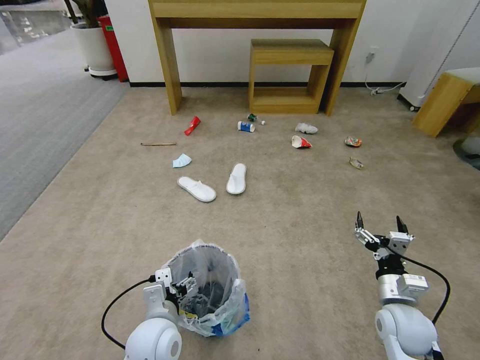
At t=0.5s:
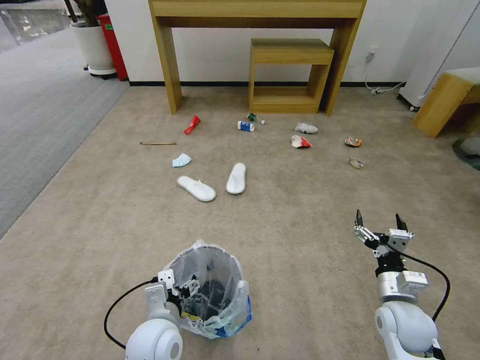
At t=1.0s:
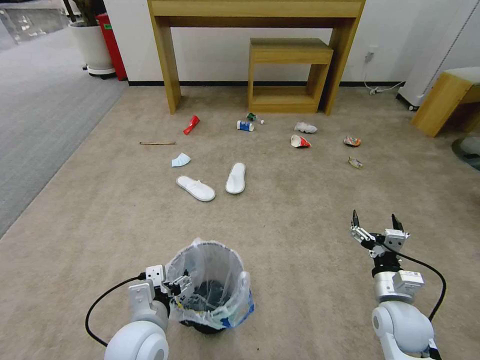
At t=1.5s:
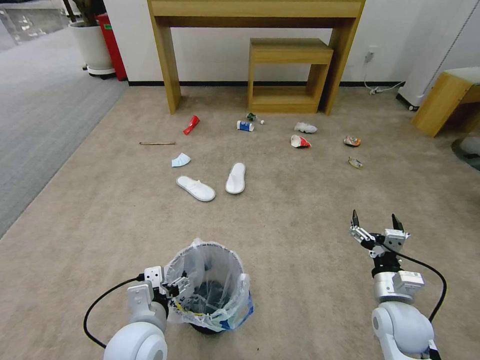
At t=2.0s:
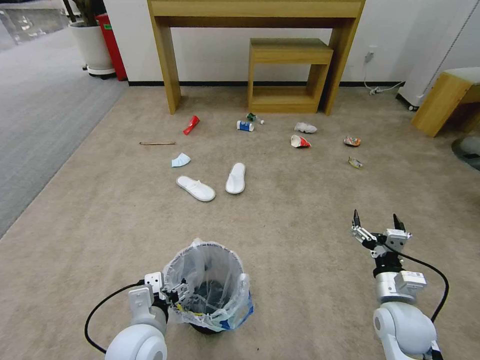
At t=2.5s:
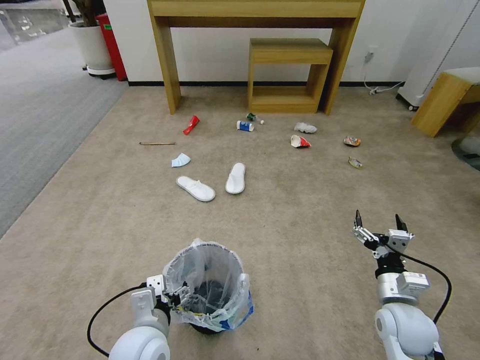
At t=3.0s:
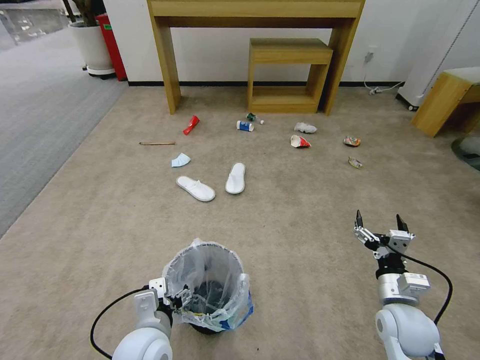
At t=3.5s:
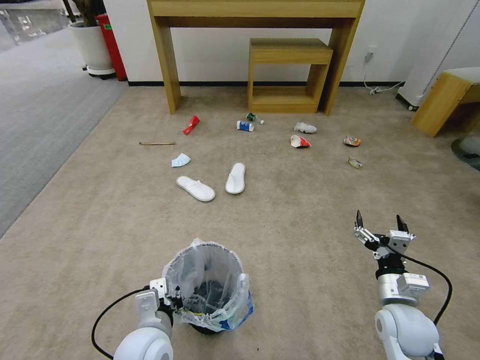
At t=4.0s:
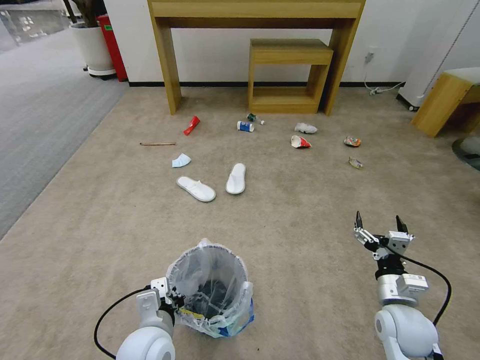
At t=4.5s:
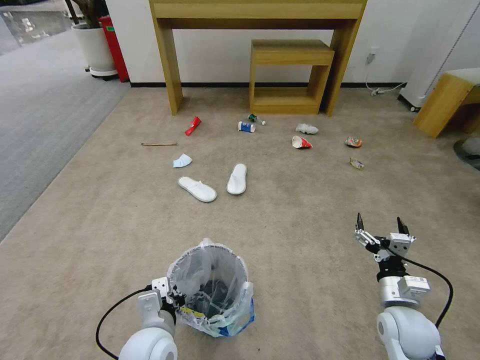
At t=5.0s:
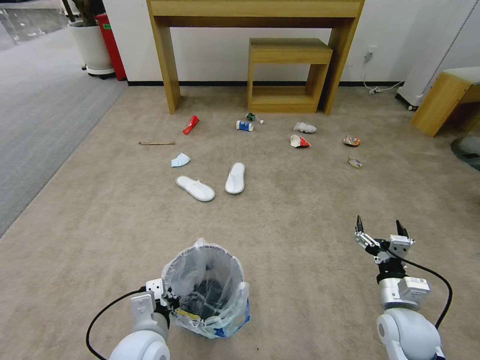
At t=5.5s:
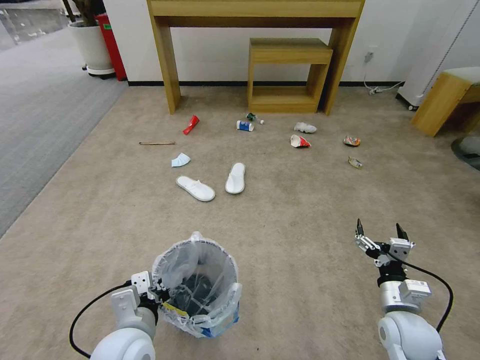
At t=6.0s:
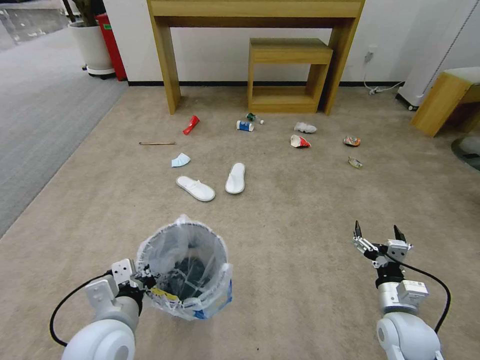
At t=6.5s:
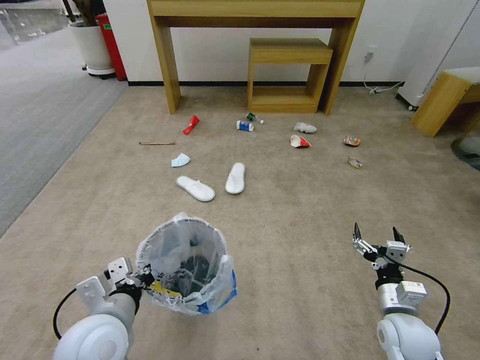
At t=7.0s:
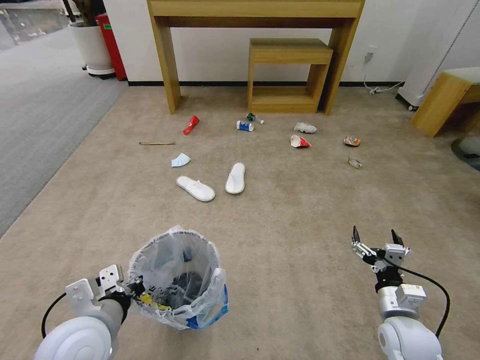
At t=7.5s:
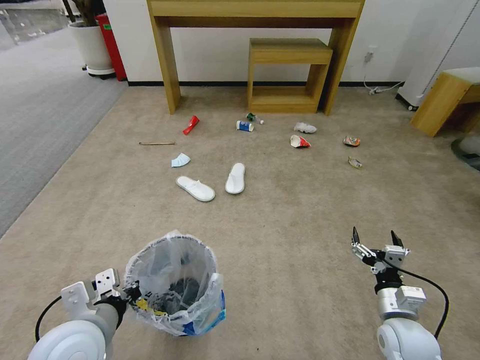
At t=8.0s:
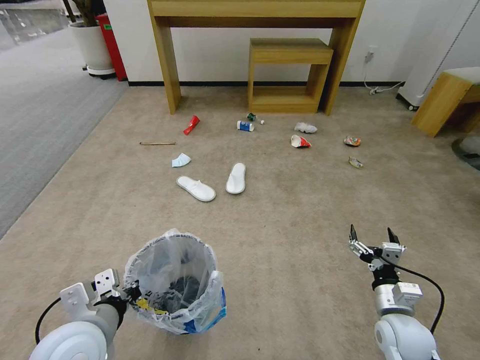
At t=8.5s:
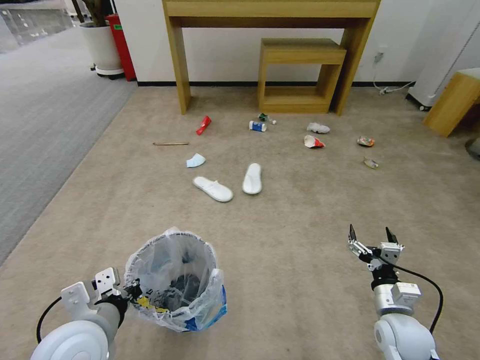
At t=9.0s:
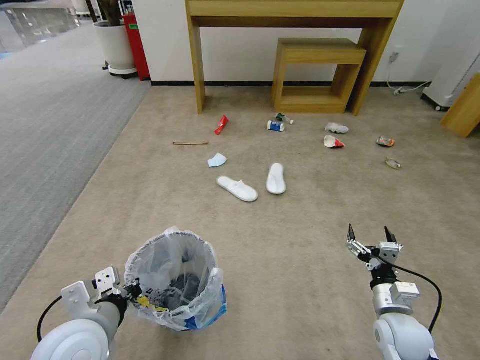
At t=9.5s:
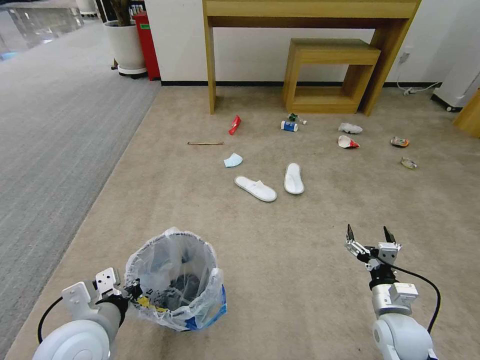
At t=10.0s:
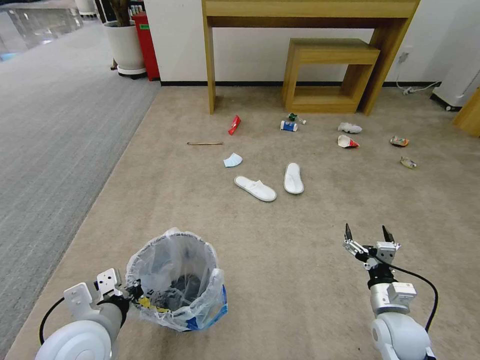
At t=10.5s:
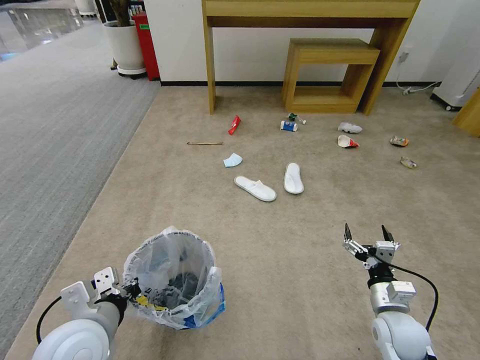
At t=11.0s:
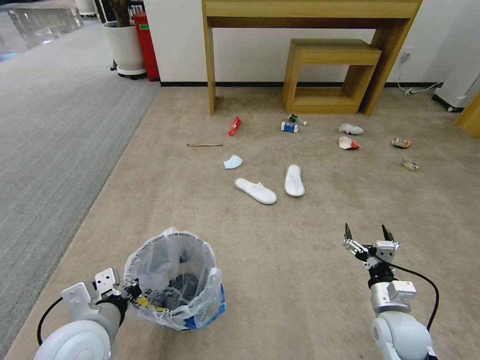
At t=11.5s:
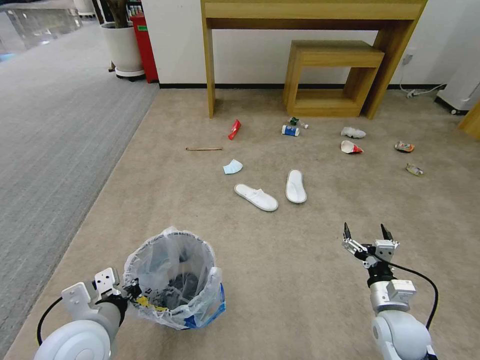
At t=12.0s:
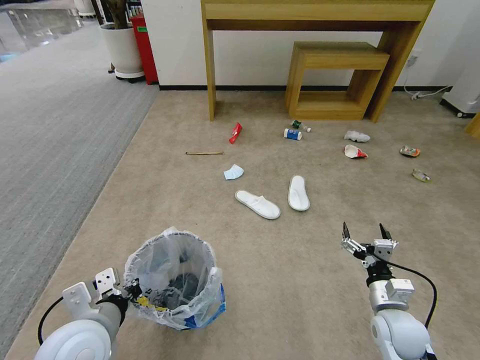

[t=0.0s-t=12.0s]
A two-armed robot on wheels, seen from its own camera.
Task of the whole recording: Pick up the trash bin and place the garbage on the floor into it.
t=2.0s to t=4.0s: The left gripper closes.
t=4.0s to t=6.0s: The left gripper travels upward by some 5 cm.
t=6.0s to t=8.0s: The left gripper changes place by approximately 5 cm.
t=10.0s to t=12.0s: Both grippers stay about where they are.

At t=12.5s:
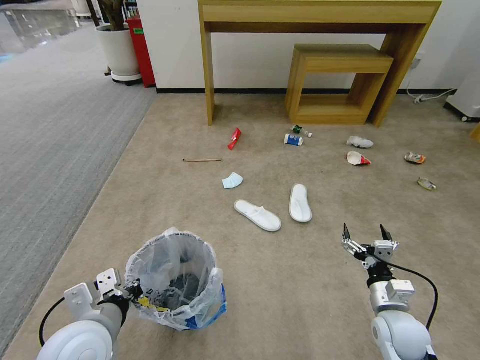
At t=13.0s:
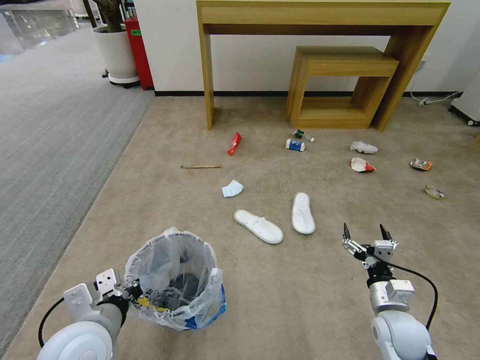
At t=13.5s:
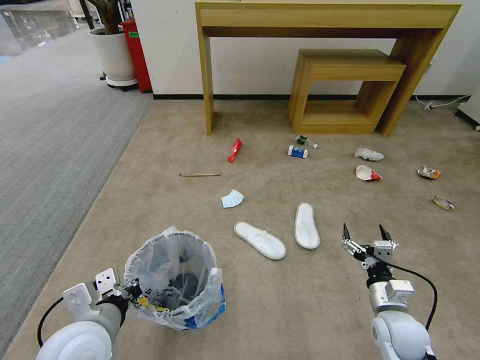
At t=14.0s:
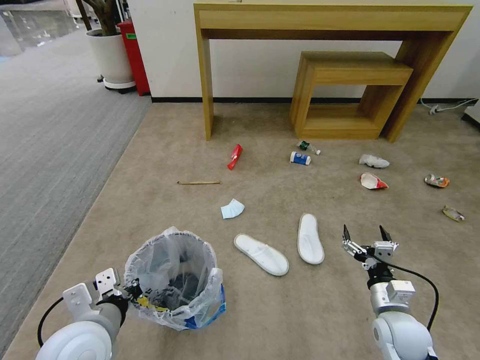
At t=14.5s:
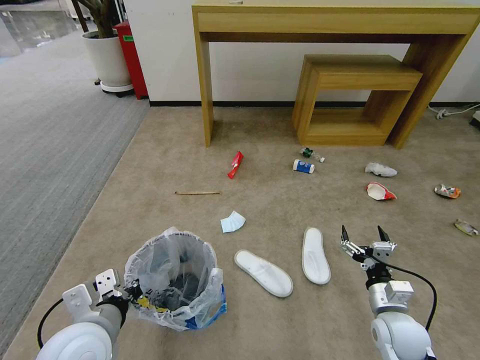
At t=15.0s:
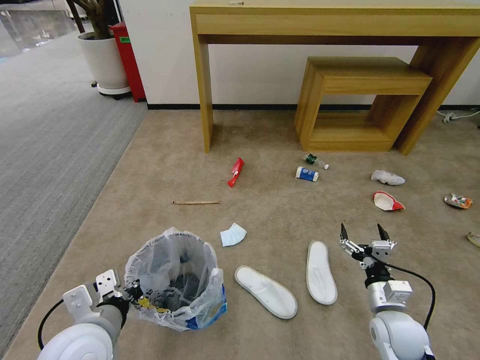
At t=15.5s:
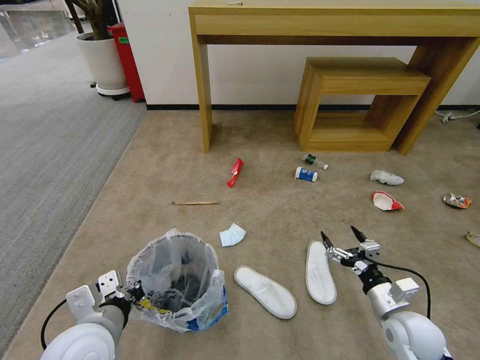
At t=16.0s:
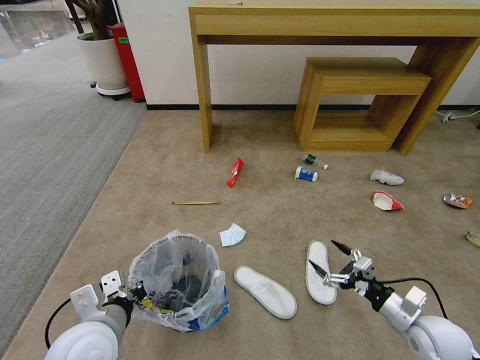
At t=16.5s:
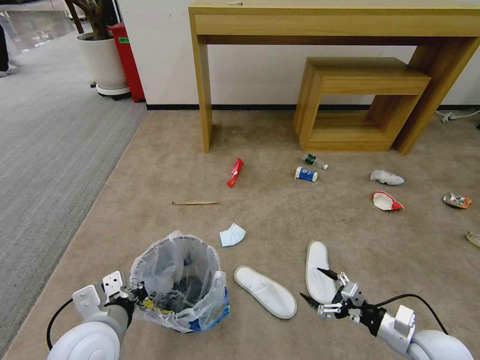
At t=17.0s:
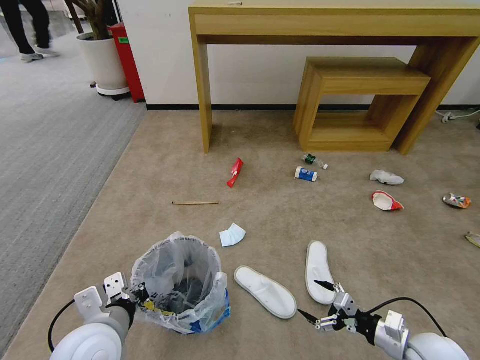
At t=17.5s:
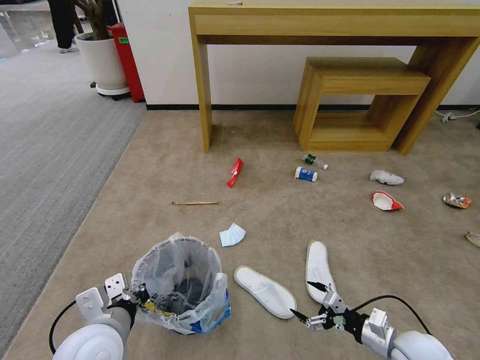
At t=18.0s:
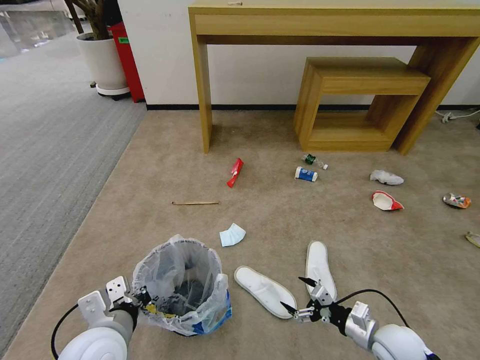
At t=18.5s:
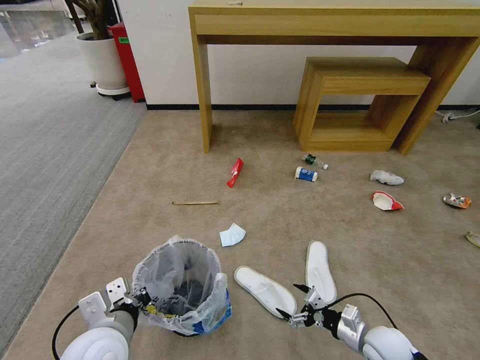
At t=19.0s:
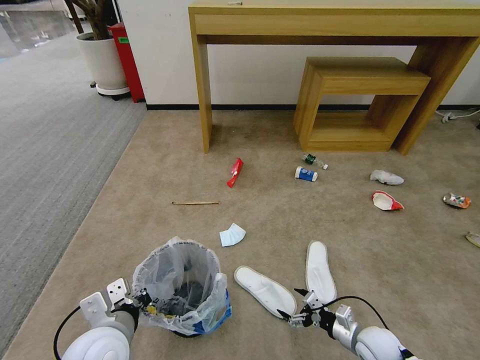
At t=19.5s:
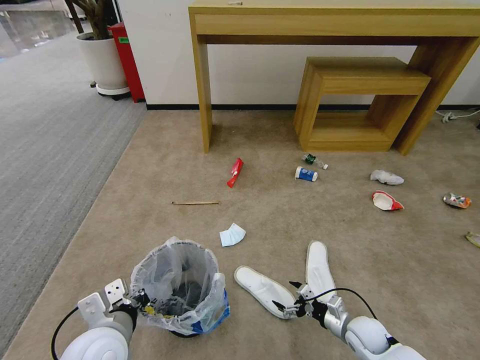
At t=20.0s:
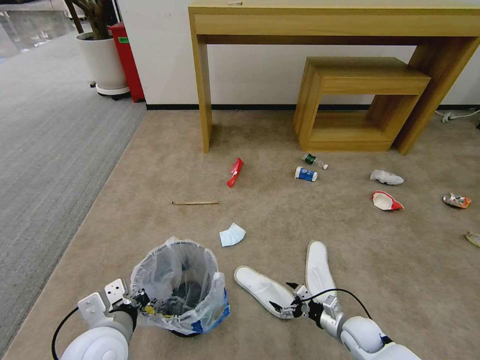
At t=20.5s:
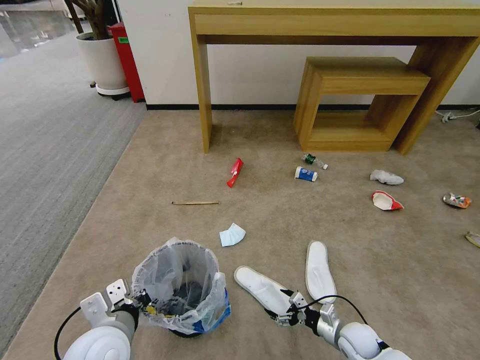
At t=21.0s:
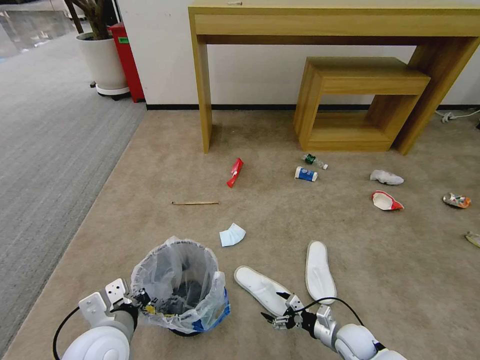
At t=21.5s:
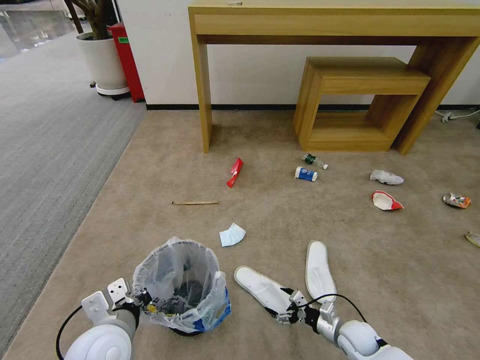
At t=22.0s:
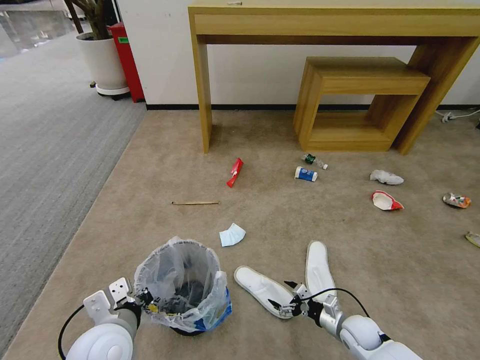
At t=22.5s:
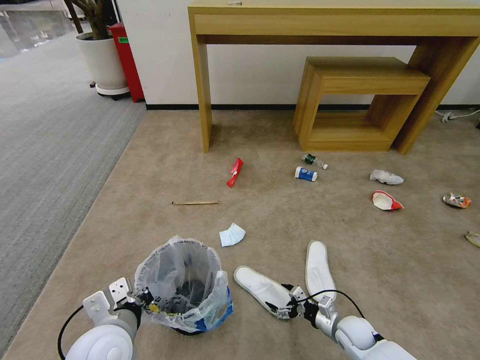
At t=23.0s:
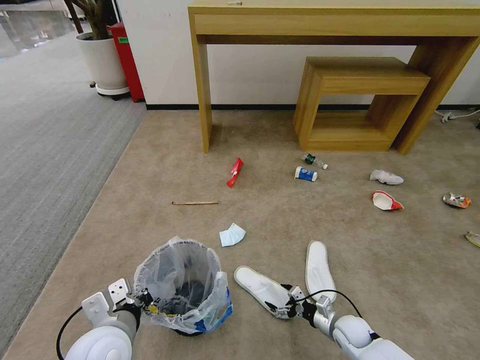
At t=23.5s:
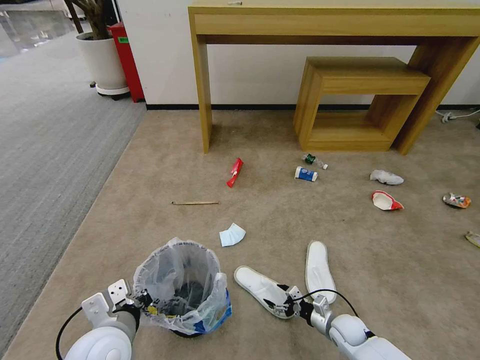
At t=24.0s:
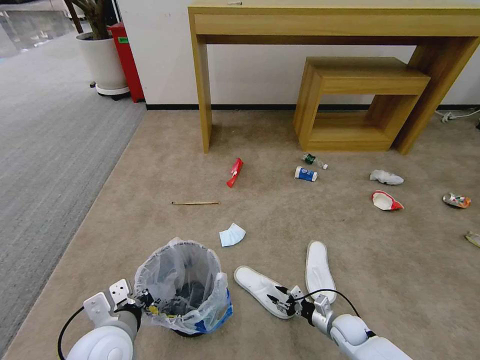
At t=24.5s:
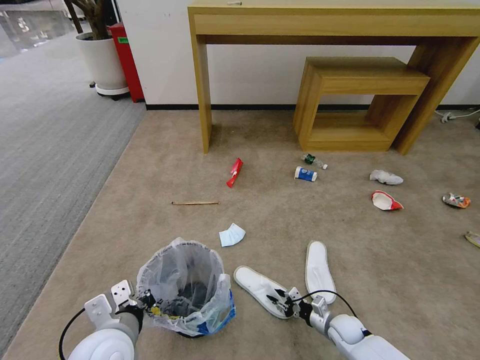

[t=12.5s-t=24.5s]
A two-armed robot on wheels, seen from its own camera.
Task of the whole recording: Pick up the trash bin and place the garbage on the floor into it.
t=14.5s to t=16.5s: The right gripper shifts about 5 cm to the right.
t=16.5s to t=18.5s: The right gripper shifts about 10 cm to the left and downward.
t=18.5s to t=20.5s: The right gripper is displaced downward by some 10 cm.
t=20.5s to t=22.5s: The grippers move only a little.
t=22.5s to t=24.5s: The right gripper closes.

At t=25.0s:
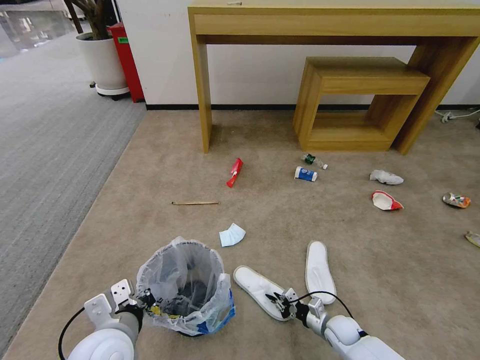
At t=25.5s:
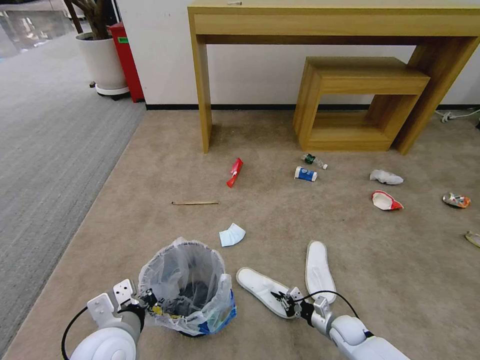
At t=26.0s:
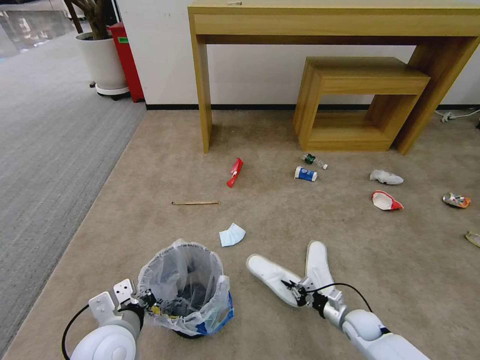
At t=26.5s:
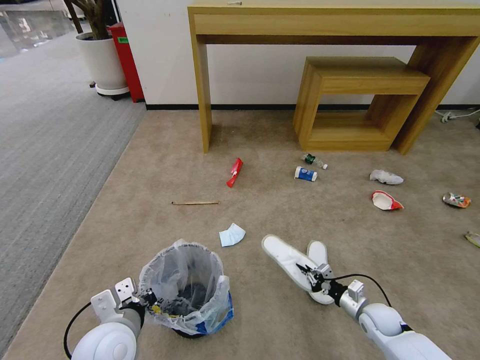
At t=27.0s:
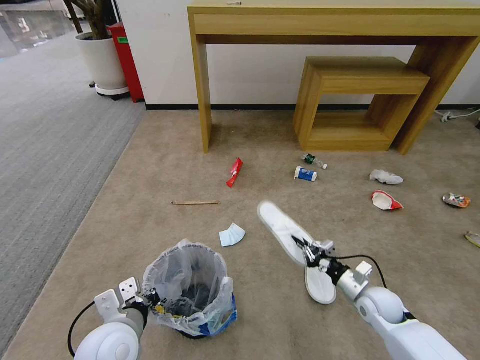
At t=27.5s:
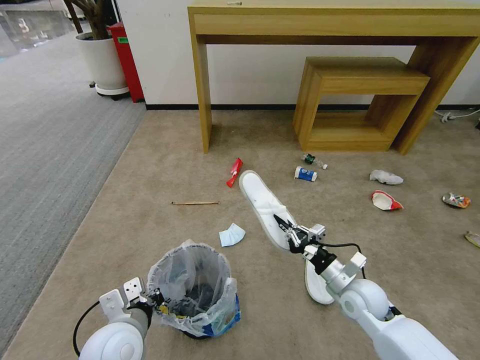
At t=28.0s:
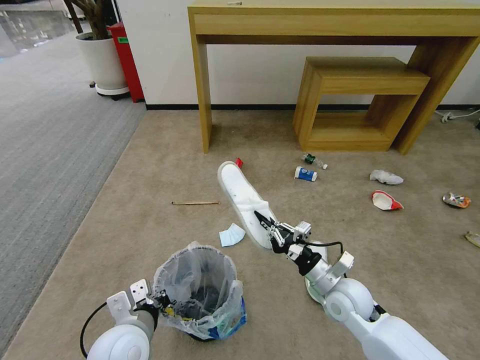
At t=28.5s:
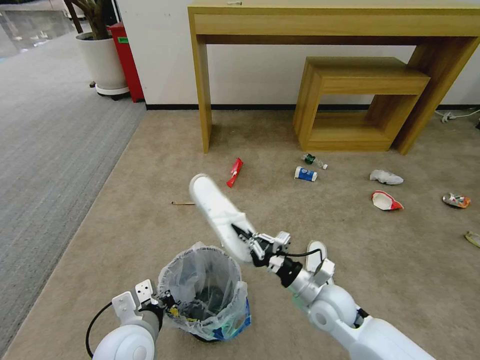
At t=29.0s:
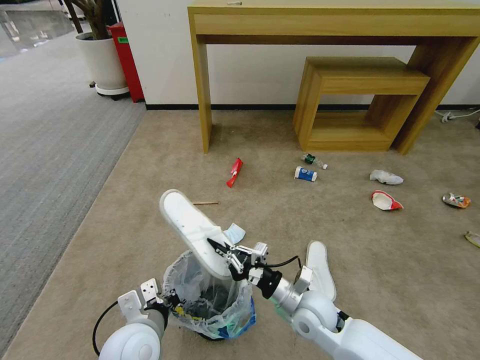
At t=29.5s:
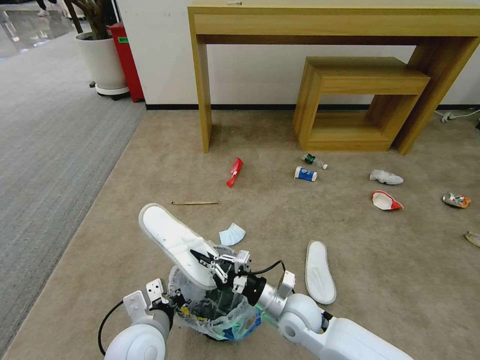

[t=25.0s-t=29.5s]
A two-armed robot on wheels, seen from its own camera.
Task of the whole recording: Pick up the trash bin and place the garbage on the floor into it.
t=25.0s to t=27.0s: The right gripper moves upward and to the right, roughly 15 cm.
t=27.0s to t=29.5s: The right gripper travels to the left by about 25 cm.
